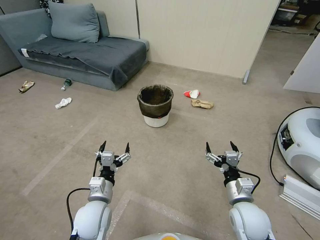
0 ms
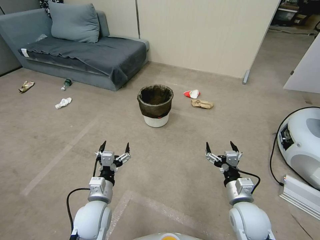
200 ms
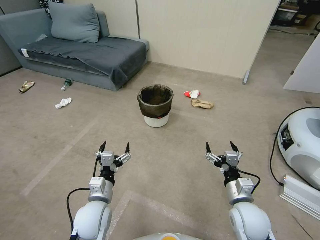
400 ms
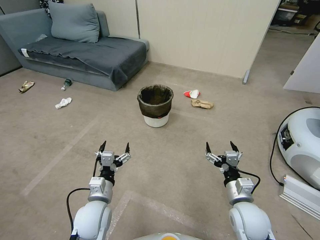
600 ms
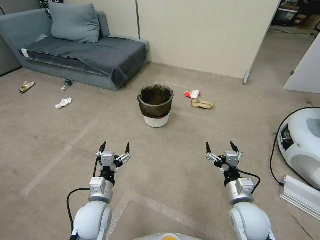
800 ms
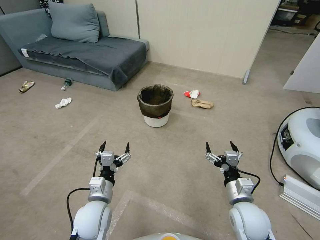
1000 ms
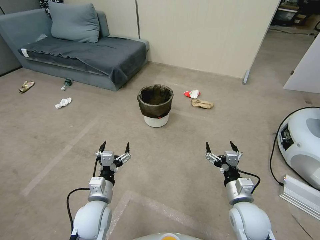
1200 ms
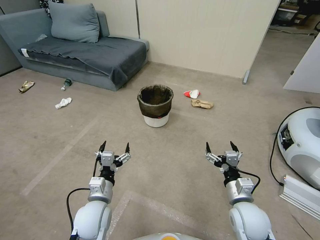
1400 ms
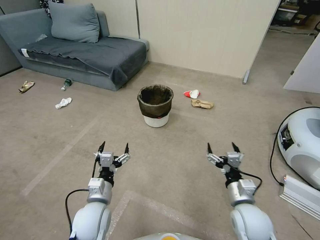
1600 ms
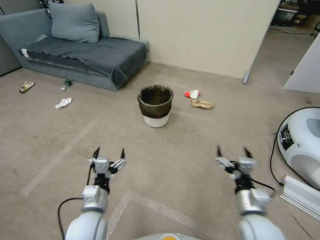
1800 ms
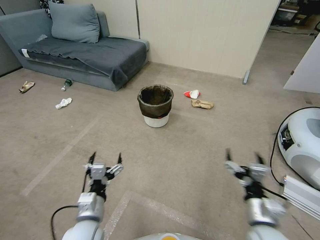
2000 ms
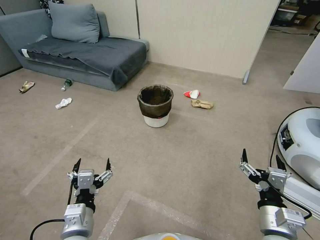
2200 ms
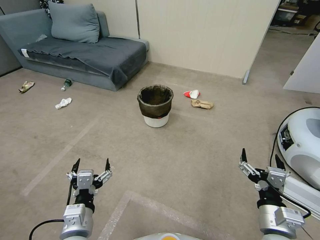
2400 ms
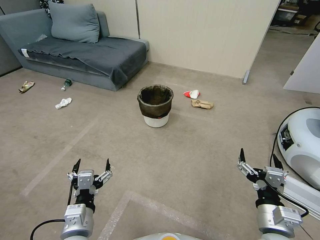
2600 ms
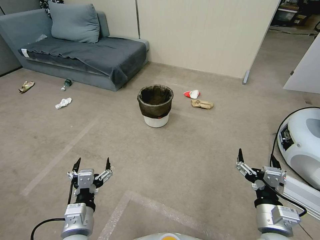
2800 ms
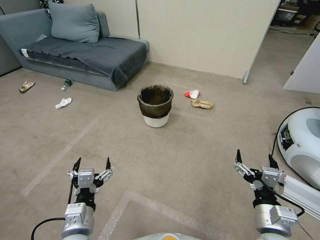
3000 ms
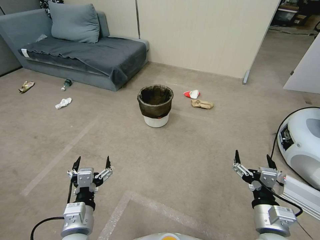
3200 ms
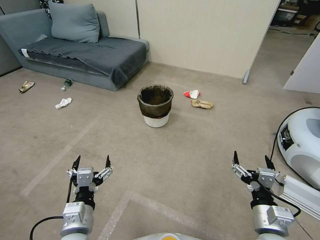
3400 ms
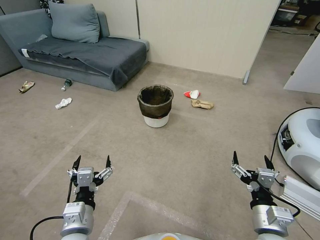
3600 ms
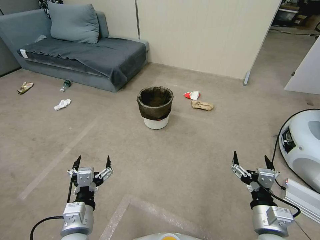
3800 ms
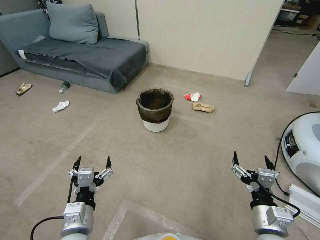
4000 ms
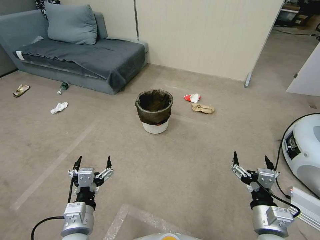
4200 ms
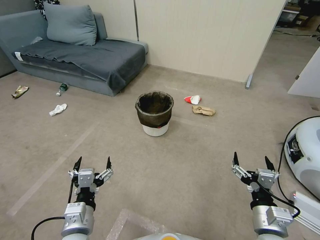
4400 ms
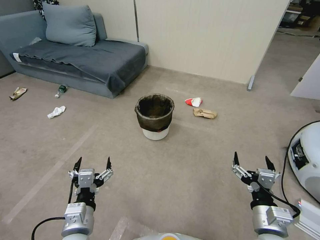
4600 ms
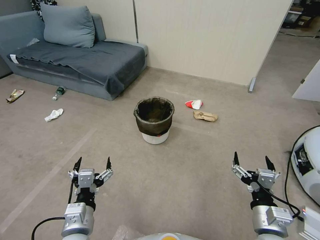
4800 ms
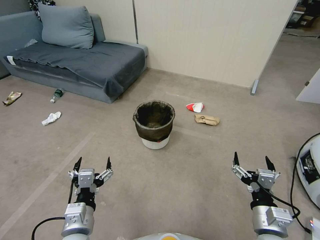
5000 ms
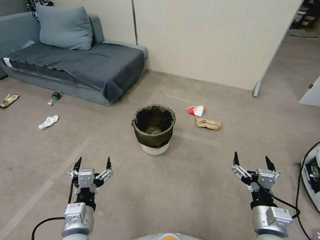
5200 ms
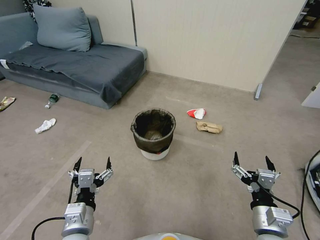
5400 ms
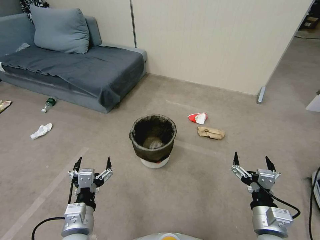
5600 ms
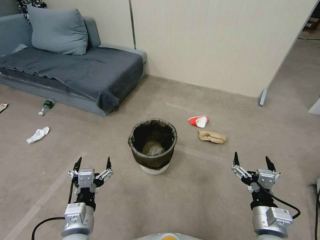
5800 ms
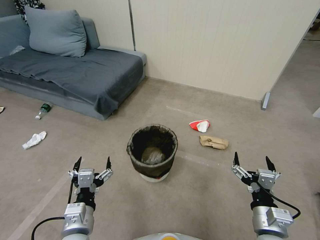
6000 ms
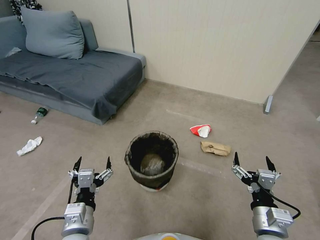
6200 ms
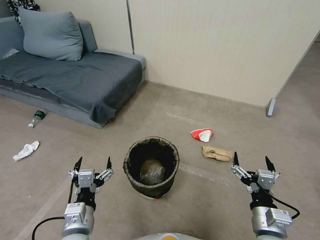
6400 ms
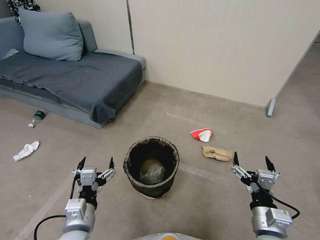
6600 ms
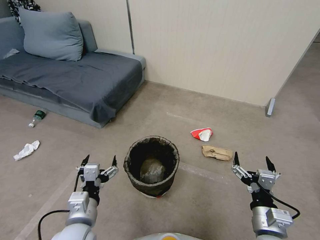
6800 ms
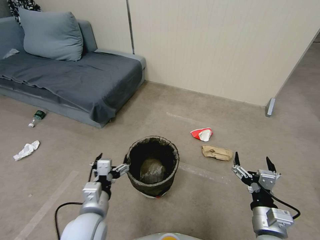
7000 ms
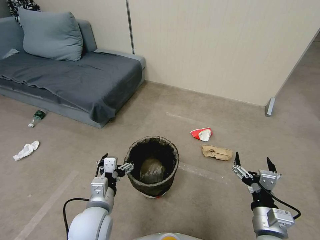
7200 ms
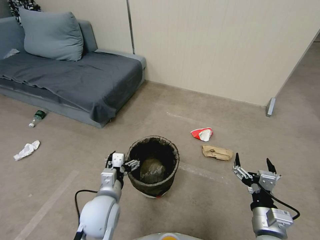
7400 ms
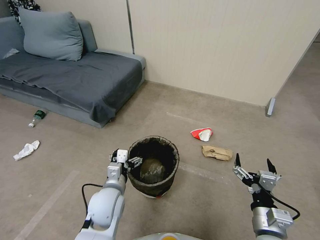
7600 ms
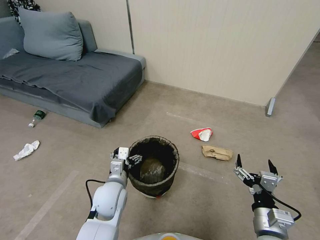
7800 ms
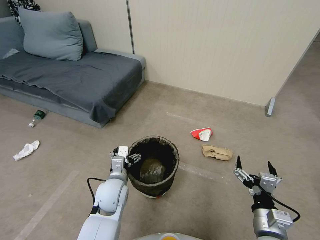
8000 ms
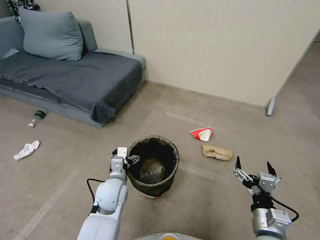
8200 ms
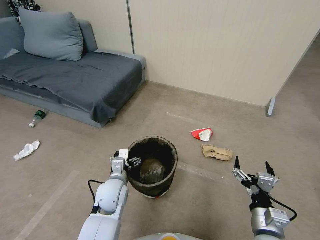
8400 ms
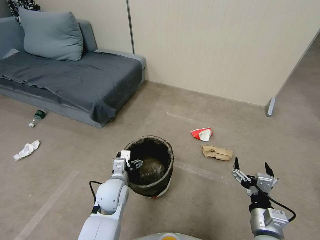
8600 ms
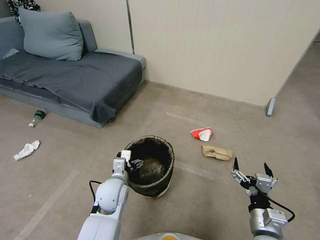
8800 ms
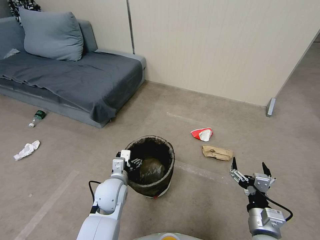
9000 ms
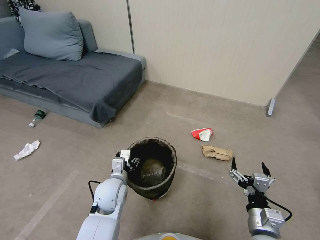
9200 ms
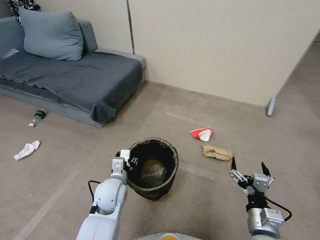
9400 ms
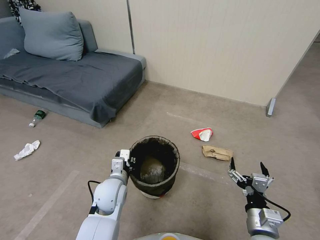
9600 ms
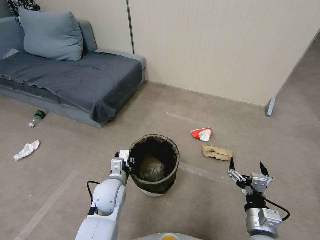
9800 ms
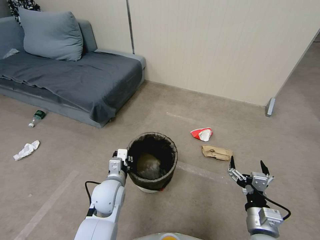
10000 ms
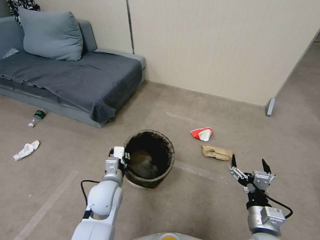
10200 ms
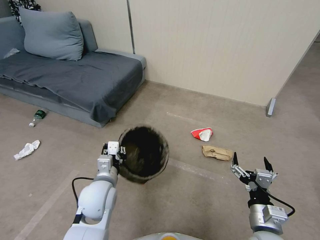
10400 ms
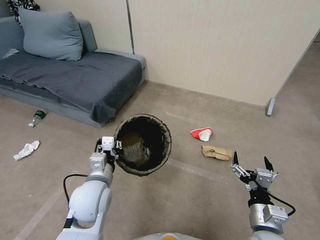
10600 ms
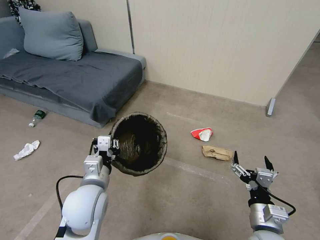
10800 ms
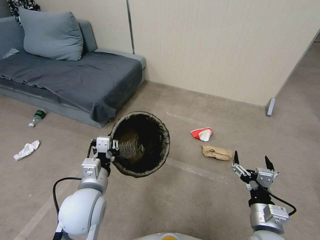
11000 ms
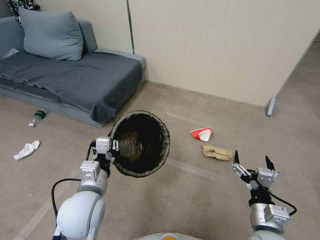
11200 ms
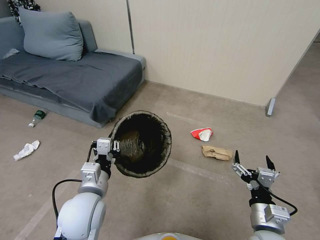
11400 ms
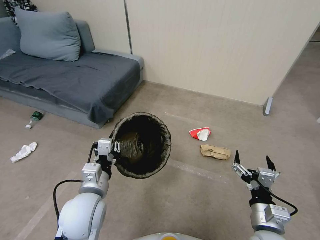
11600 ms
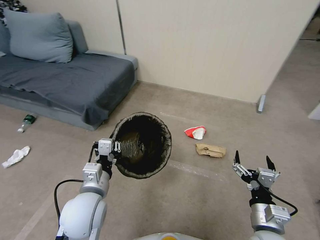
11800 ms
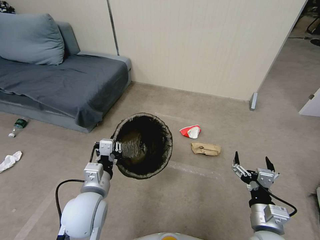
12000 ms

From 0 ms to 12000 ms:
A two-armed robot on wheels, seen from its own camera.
Task of the whole recording: Pick up the trash bin, then pick up the garbage from the floor and place it into the trash bin.
From 1600 ms to 3000 ms: The left gripper heads backward and upward, covering some 10 cm; the right gripper goes some 10 cm backward.
From 3000 ms to 4400 ms: Neither gripper changes place.
From 6000 ms to 7600 ms: The left gripper travels forward and to the right by about 15 cm.
From 7600 ms to 9000 ms: The grippers stay close to where they were, moving slightly.
From 9000 ms to 10400 ms: The left gripper ends up roughly 5 cm from where it was, and closes up.
From 10400 ms to 12000 ms: The left gripper ends up some 5 cm from where it was.

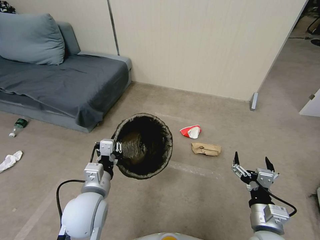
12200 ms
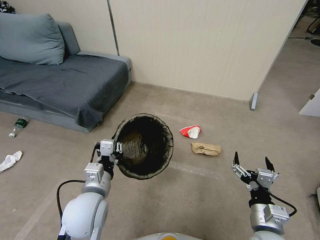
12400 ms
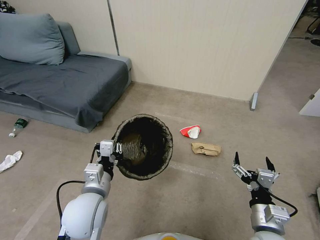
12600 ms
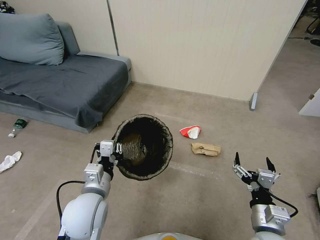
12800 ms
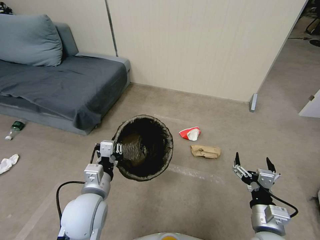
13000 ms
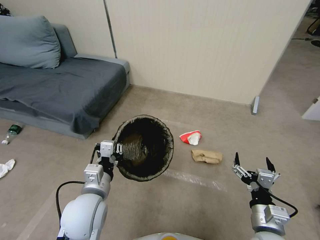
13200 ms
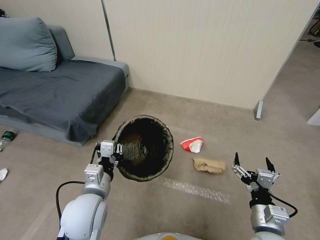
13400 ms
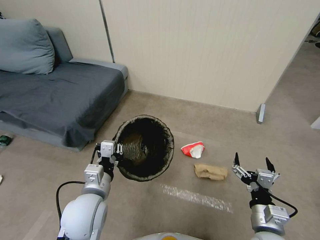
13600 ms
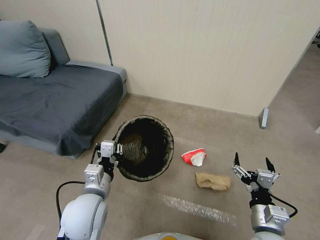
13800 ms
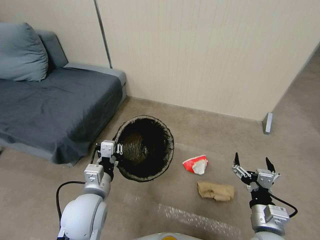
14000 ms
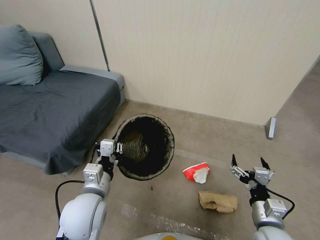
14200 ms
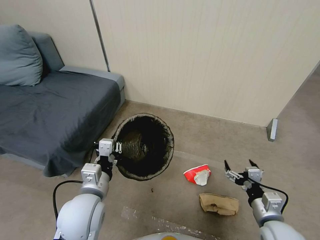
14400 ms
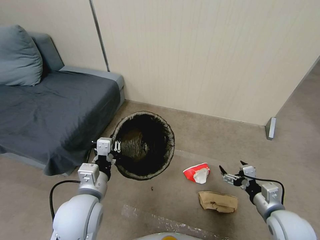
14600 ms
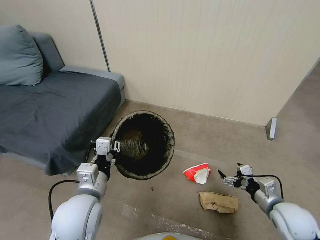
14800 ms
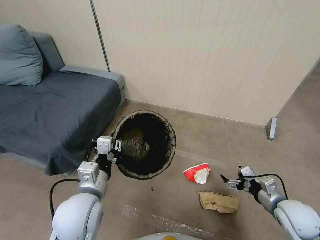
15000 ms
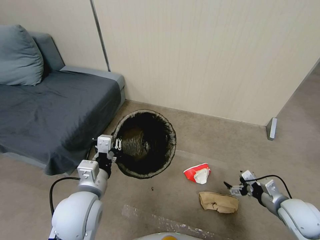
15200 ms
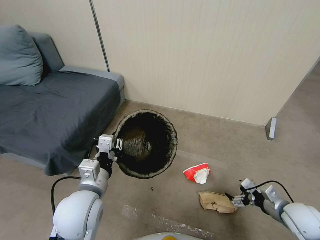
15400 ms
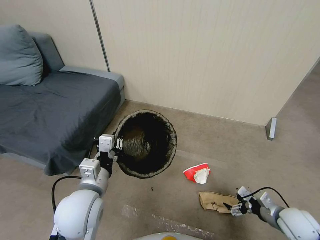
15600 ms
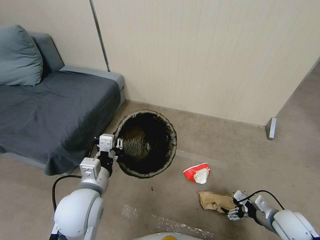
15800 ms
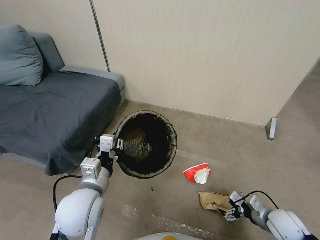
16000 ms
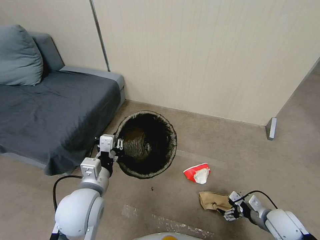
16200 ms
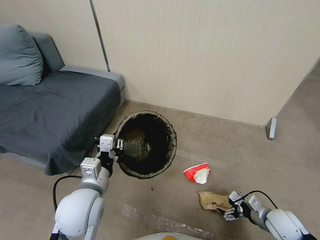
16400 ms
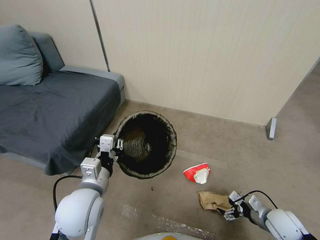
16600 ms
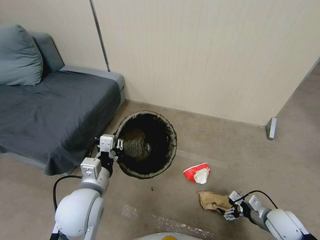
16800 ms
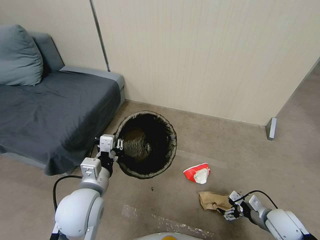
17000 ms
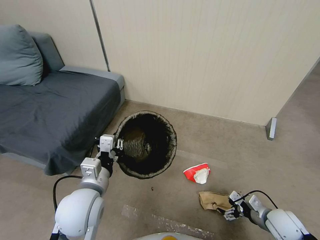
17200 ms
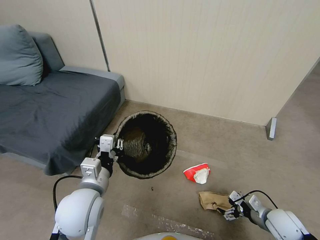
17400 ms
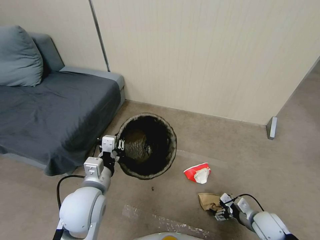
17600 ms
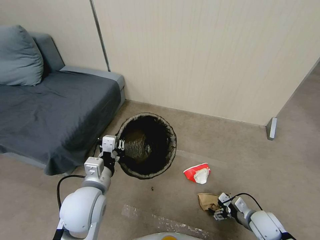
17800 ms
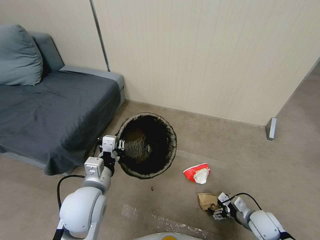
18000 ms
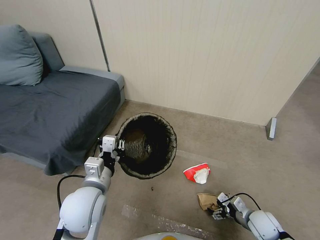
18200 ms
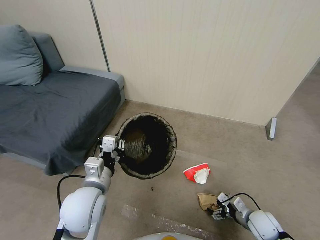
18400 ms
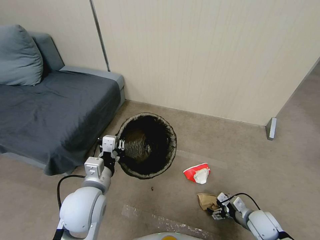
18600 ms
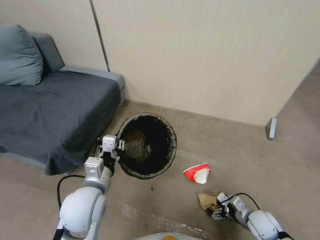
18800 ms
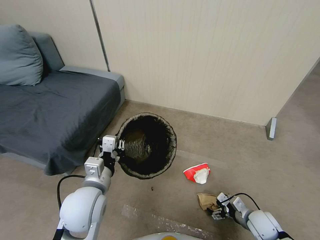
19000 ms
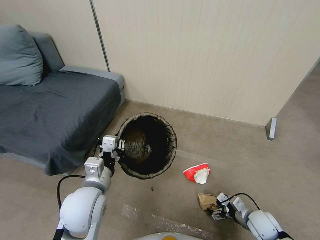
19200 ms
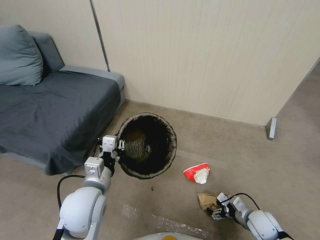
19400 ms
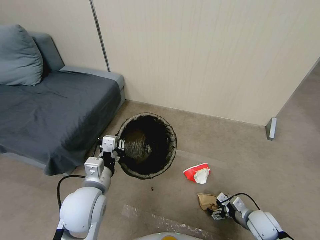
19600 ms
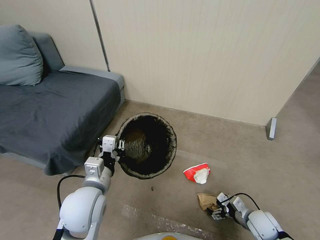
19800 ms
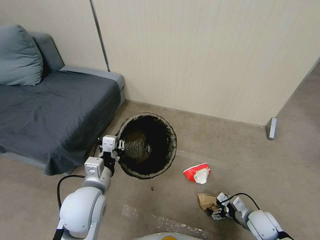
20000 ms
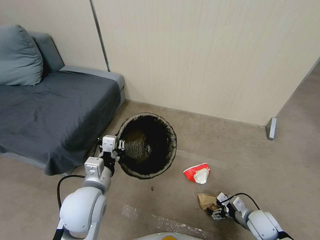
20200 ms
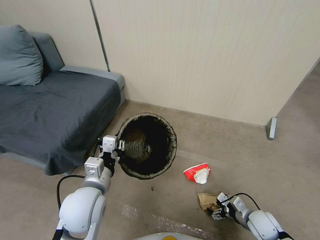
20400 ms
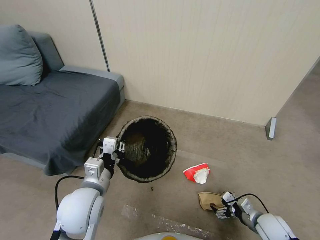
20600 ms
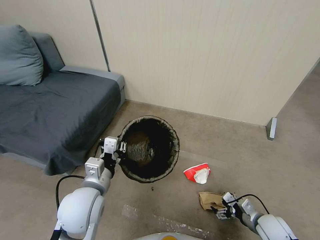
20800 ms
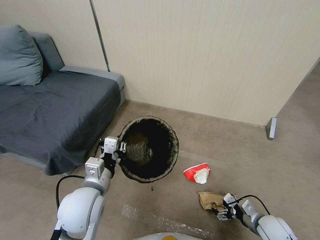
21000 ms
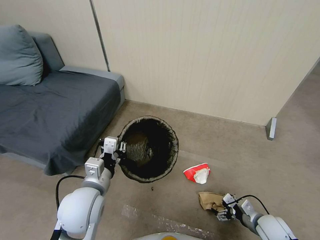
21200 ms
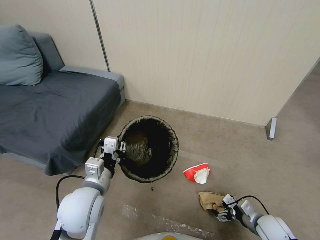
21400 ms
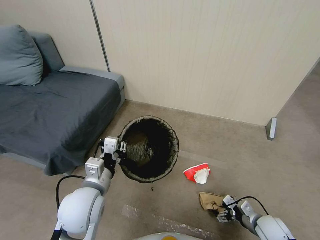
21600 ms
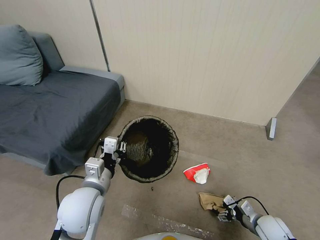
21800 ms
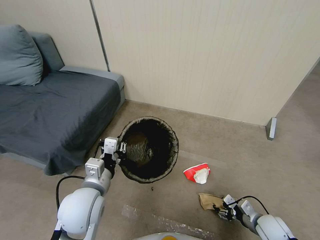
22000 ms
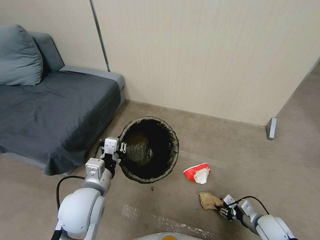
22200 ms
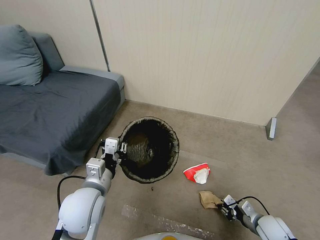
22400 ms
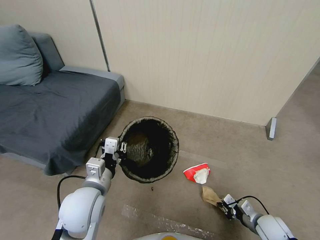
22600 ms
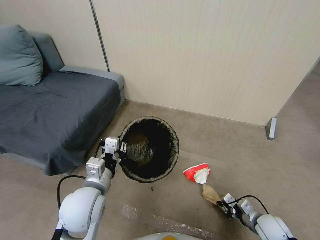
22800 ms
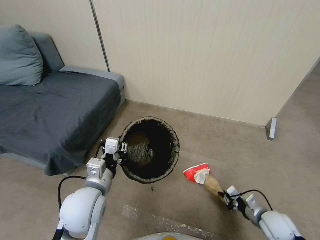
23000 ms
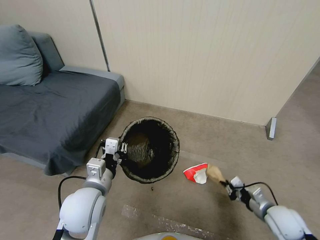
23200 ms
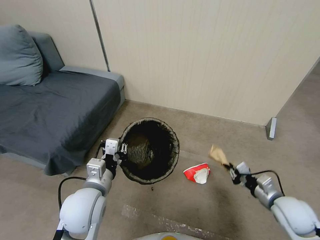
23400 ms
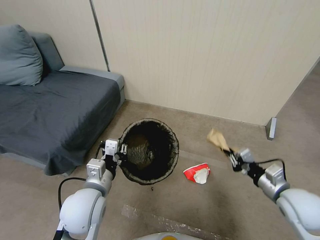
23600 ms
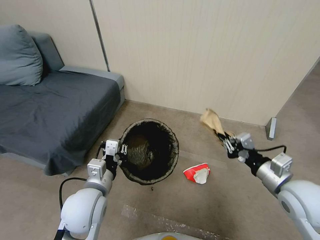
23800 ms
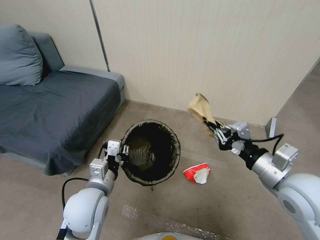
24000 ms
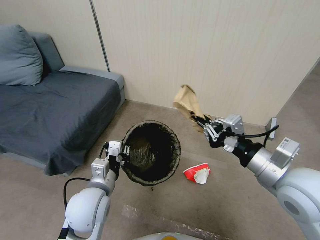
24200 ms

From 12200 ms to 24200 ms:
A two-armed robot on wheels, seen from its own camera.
Task of the whole recording: Pick up the trash bin, then pick up the garbage from the floor and place it into the trash bin.
From 13800 ms to 15200 ms: The right gripper goes some 15 cm to the right and forward.
From 15200 ms to 16600 ms: The right gripper goes some 5 cm downward.
From 16600 ms to 18200 ms: The right gripper heads downward, covering some 5 cm.
From 18200 ms to 19800 ms: Neither gripper changes place.
From 19800 ms to 21200 ms: There are only small adjustments of the grippers.
From 21200 ms to 22600 ms: The right gripper closes its fingers.
From 22600 ms to 24200 ms: The right gripper is displaced upward by approximately 35 cm.
